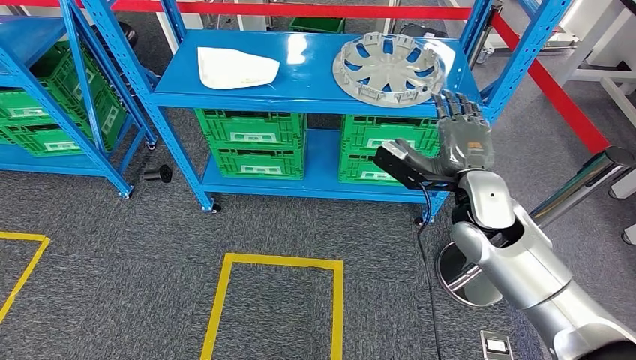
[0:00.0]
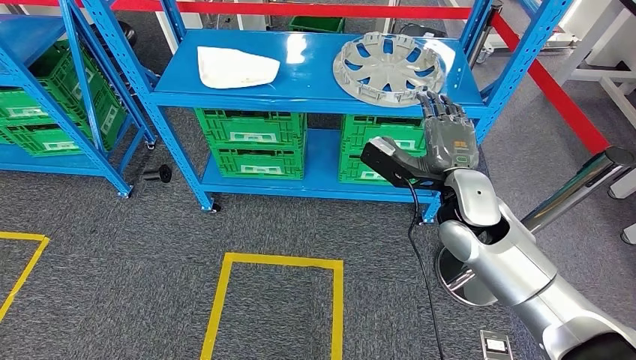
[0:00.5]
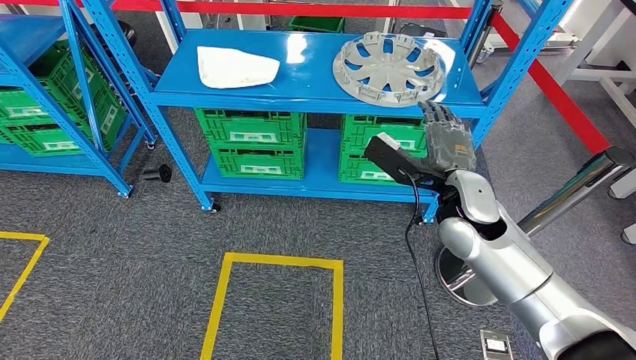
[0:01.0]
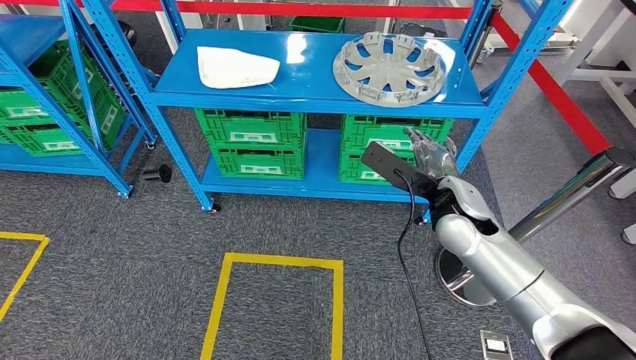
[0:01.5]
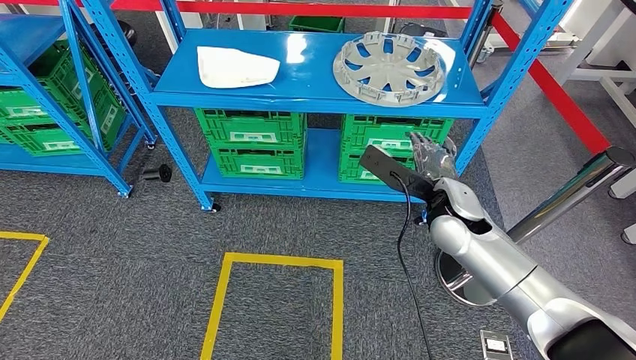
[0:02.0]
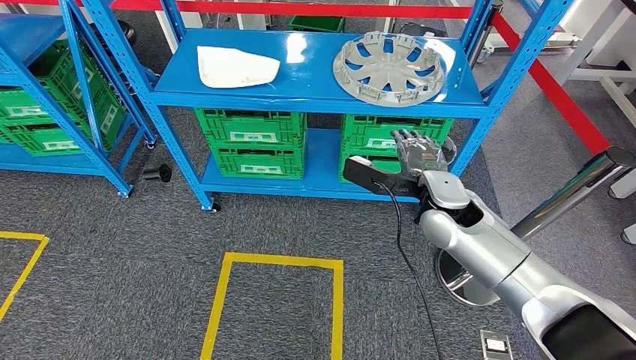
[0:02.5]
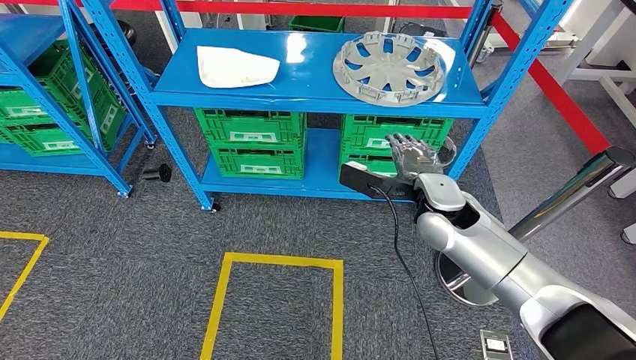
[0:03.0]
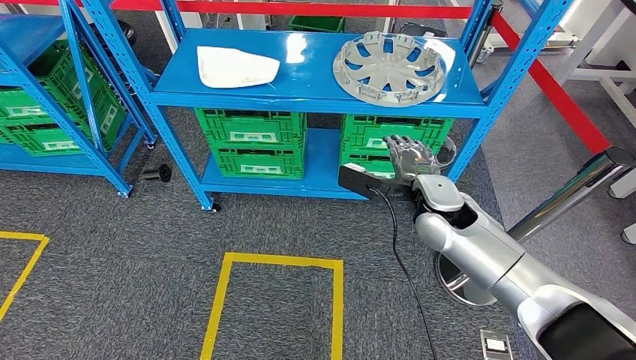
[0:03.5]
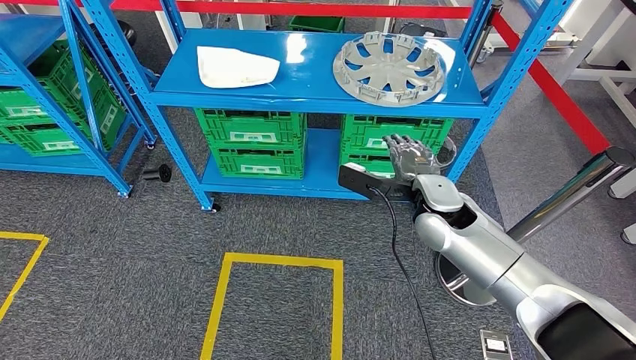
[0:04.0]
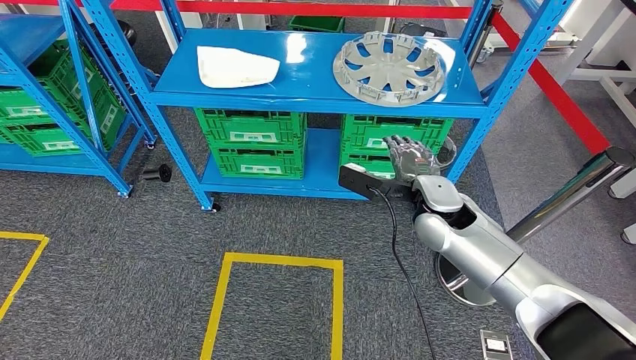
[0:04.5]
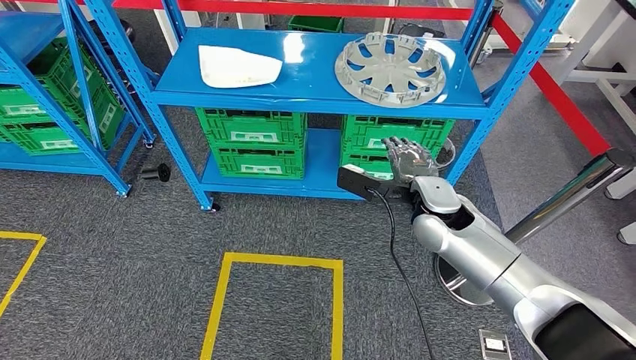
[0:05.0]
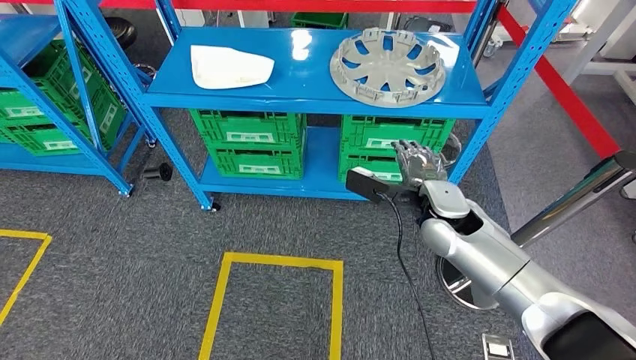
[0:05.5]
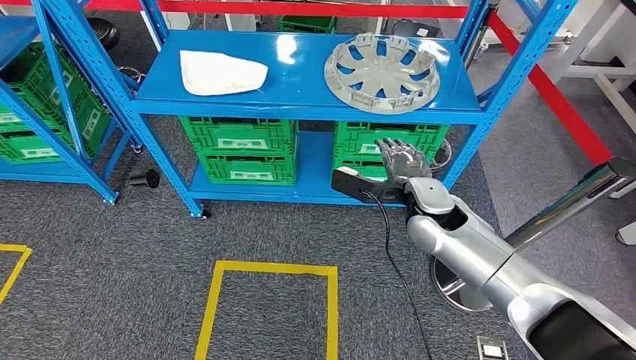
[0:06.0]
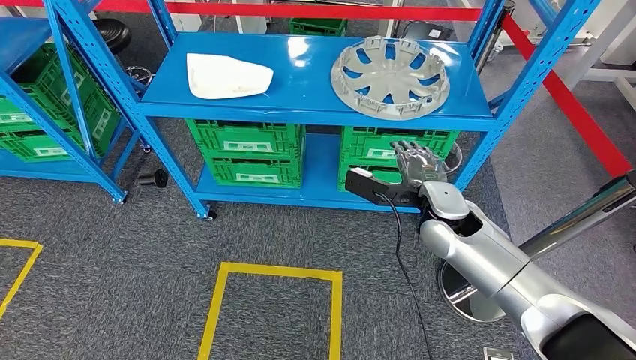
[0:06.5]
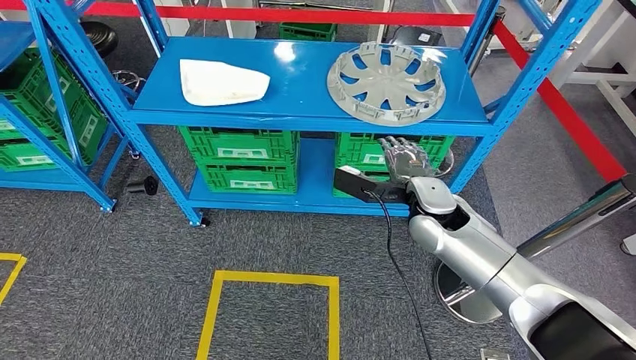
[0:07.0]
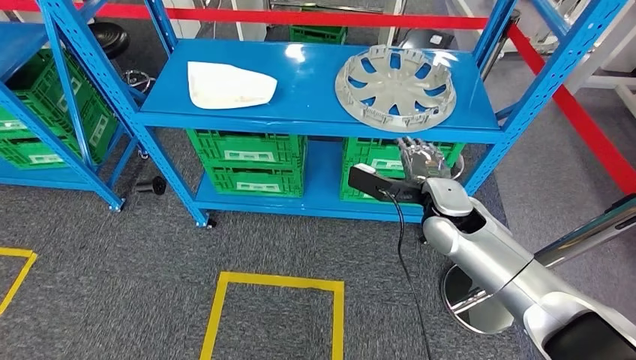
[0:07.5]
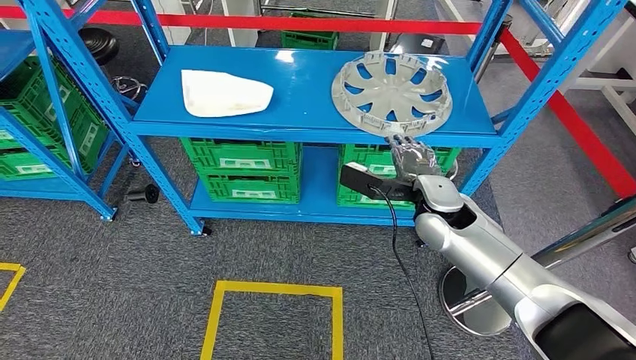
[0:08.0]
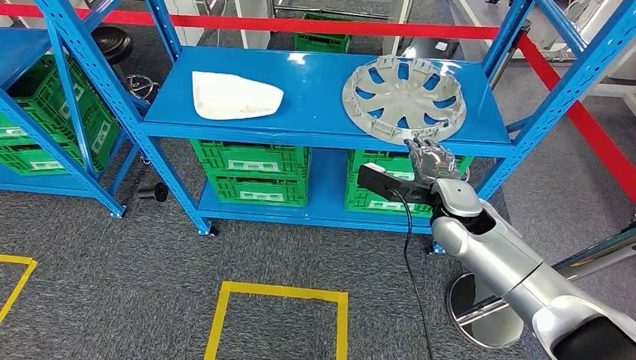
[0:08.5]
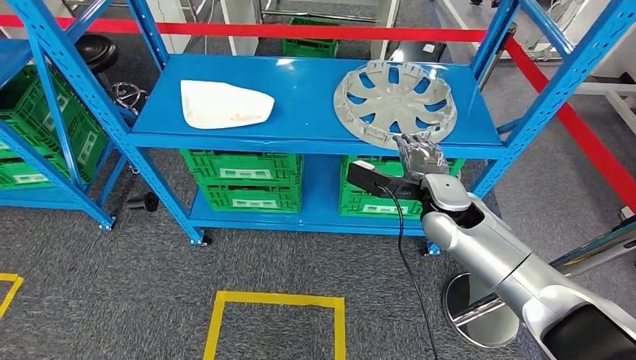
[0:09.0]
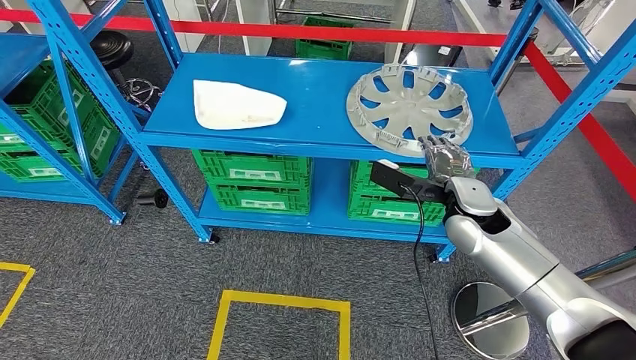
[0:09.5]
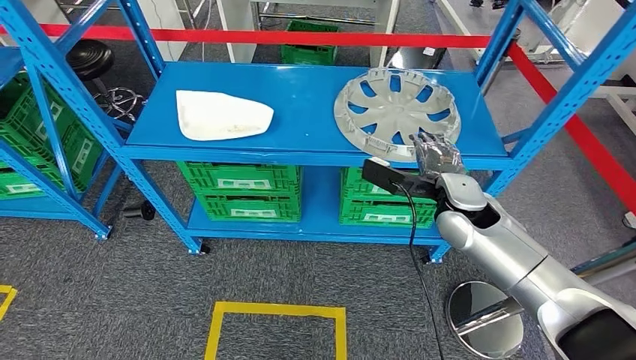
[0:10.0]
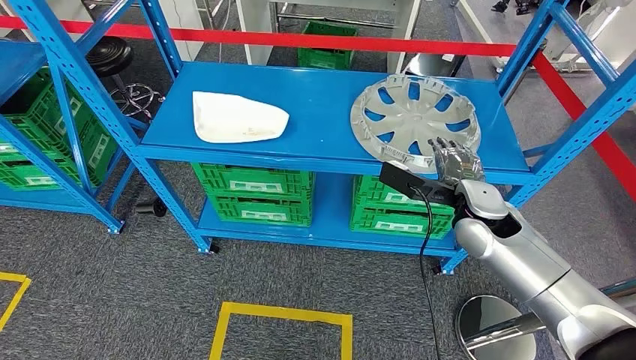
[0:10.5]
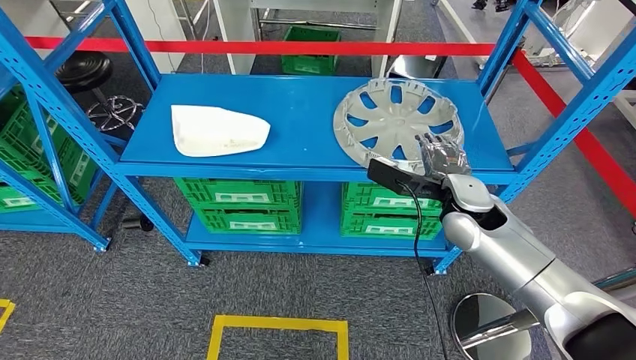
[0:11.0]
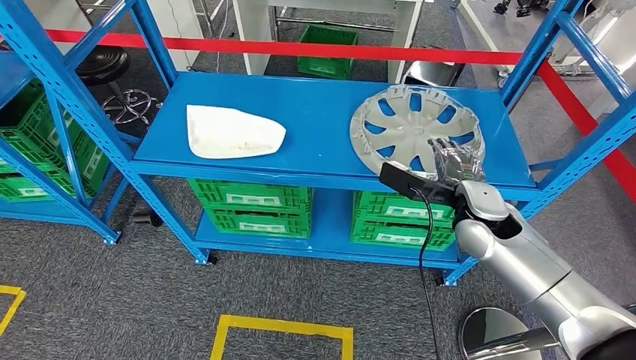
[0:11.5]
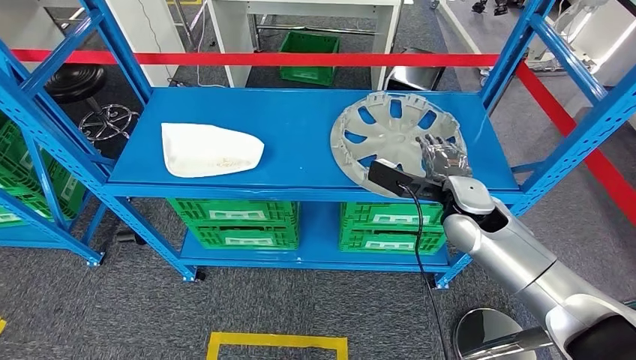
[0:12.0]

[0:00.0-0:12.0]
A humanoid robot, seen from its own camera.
0:02.0 to 0:04.0: There are only small adjustments of the hands.

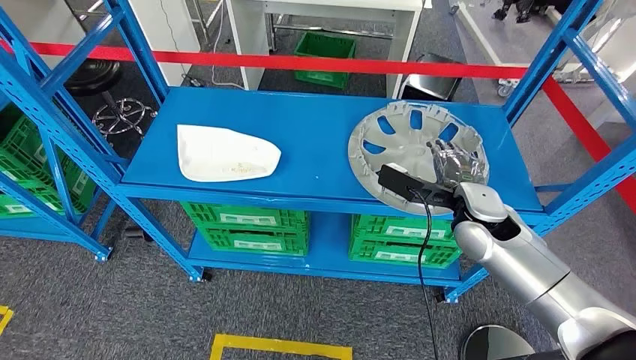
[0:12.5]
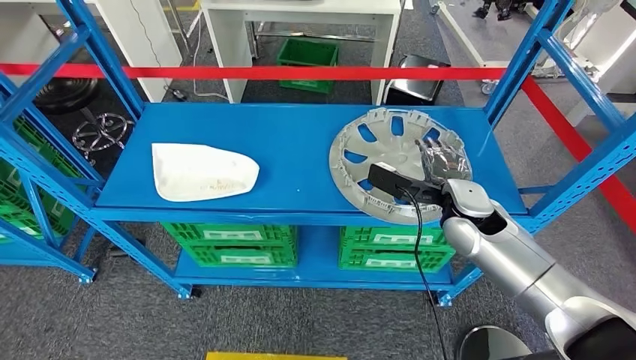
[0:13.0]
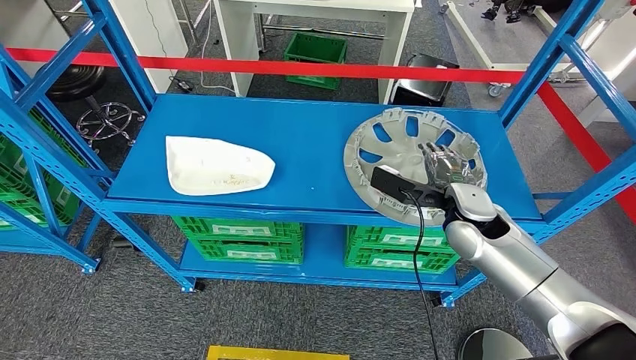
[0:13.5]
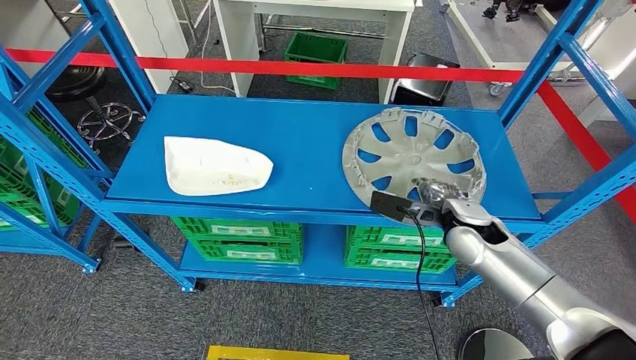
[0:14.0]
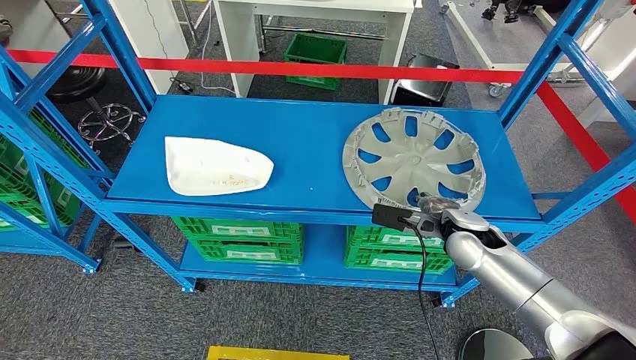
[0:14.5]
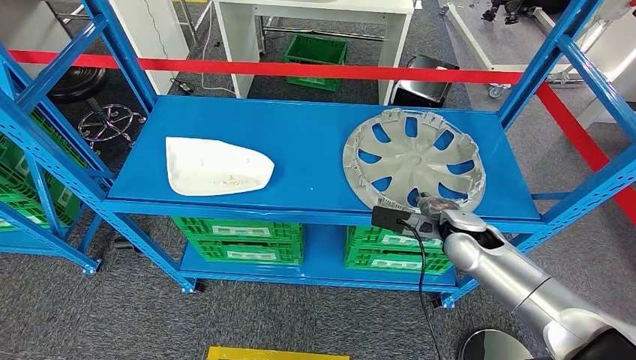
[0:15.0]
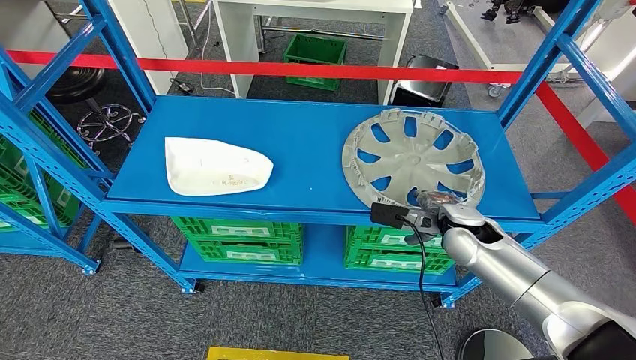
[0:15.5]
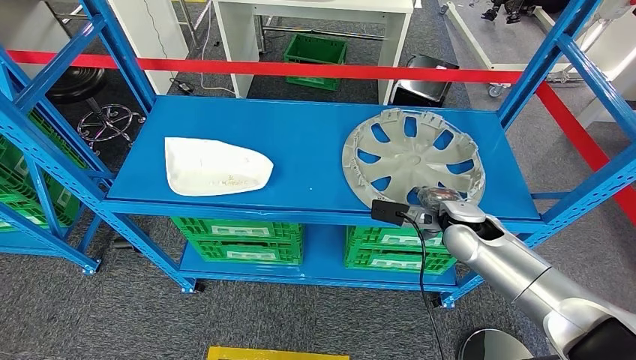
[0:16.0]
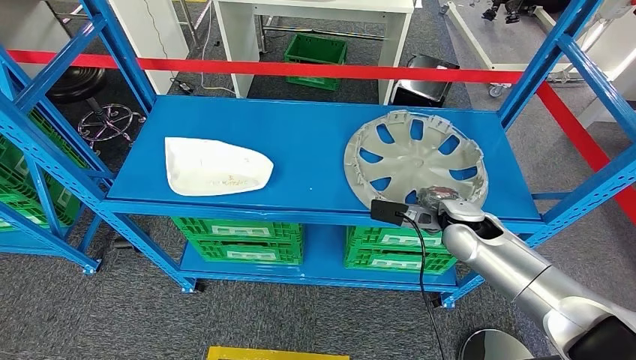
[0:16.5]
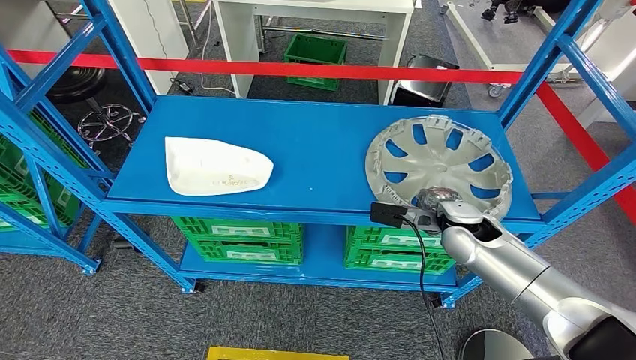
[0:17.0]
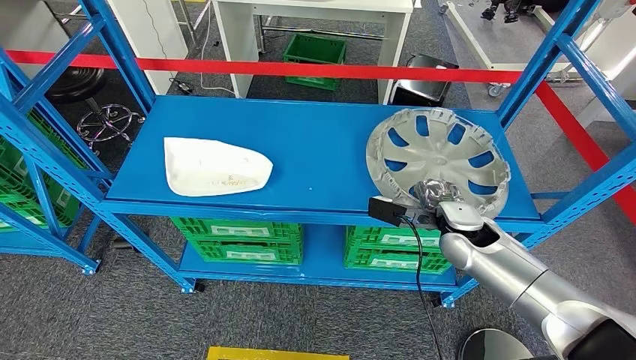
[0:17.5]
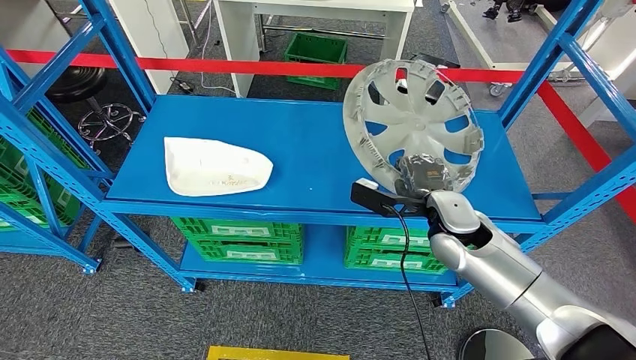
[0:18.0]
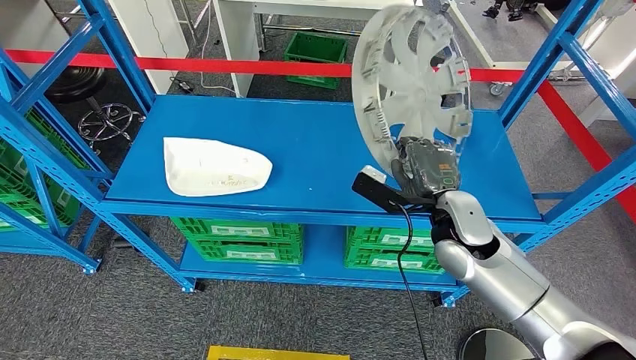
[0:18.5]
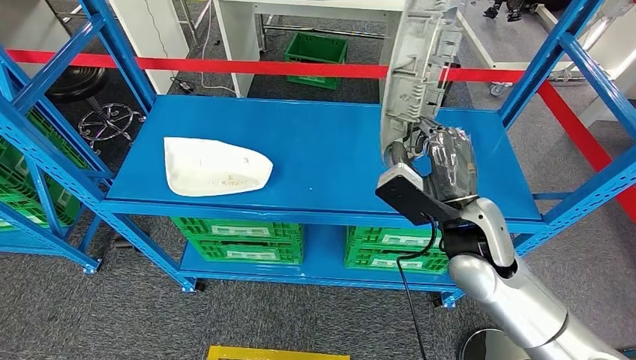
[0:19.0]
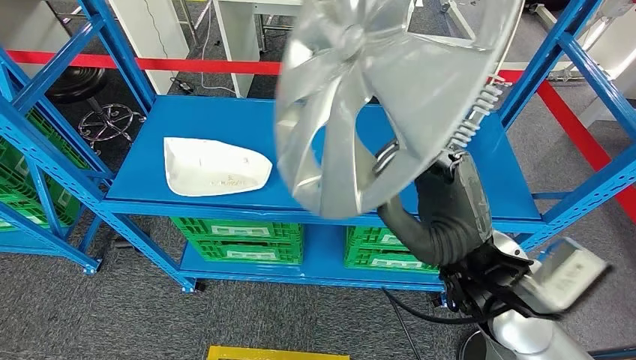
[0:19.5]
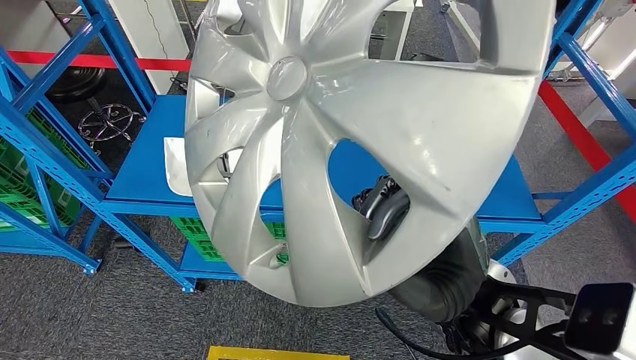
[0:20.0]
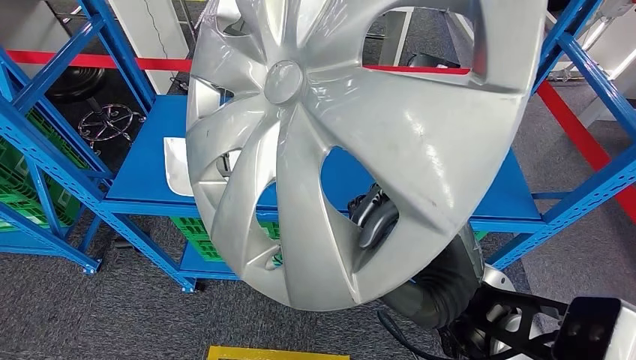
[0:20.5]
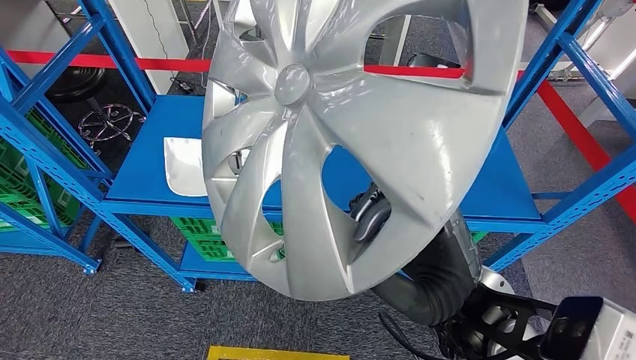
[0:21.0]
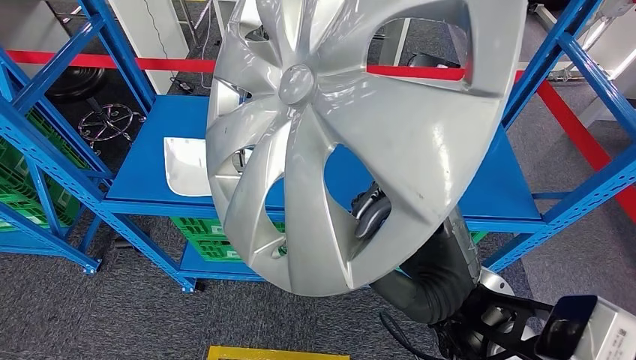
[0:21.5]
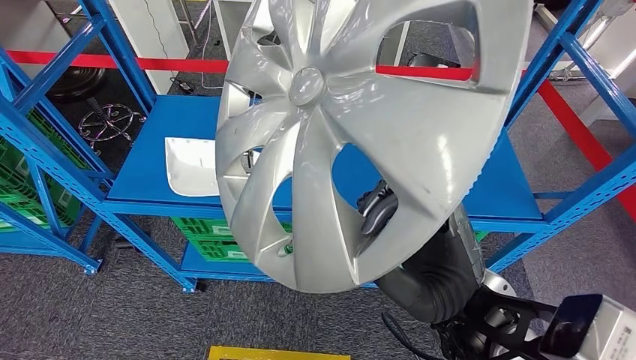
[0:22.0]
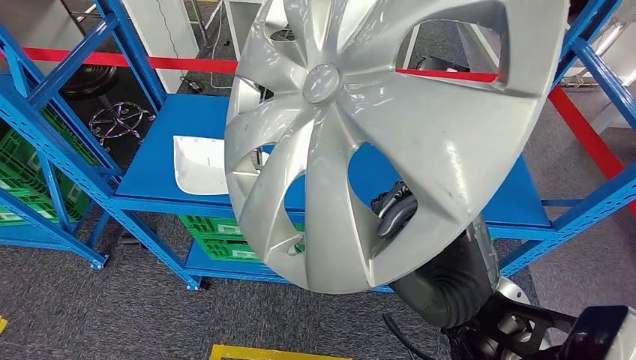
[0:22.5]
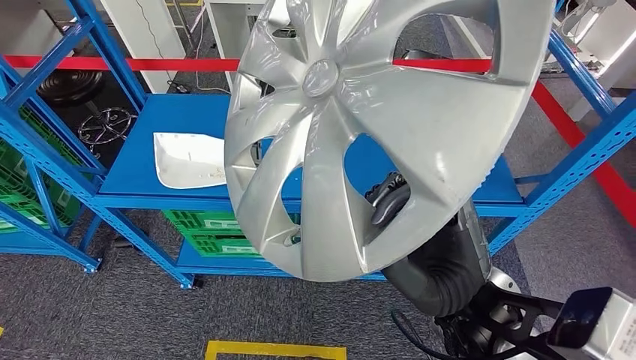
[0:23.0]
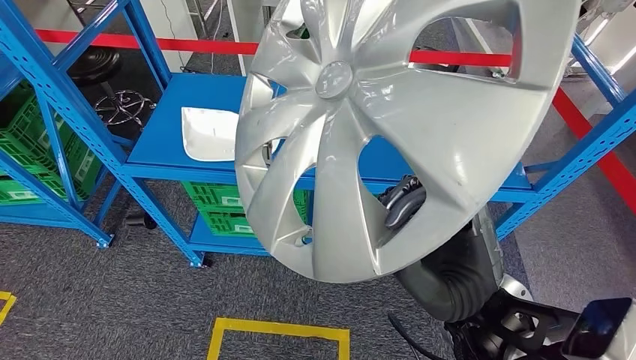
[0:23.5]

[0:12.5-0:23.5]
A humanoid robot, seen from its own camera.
Step, 0:12.5 to 0:18.5: Pick up the large material from the shelf.
0:14.5 to 0:16.0: There are only small adjustments of the hands.
